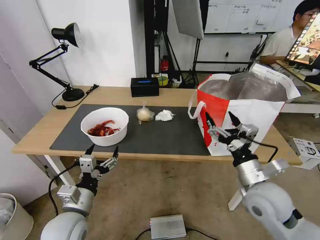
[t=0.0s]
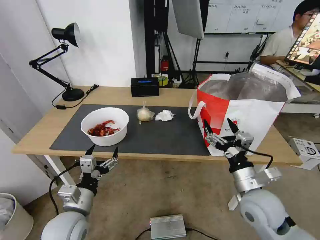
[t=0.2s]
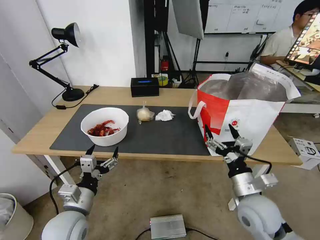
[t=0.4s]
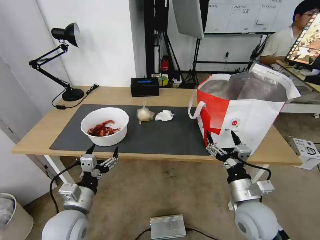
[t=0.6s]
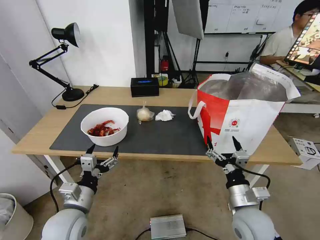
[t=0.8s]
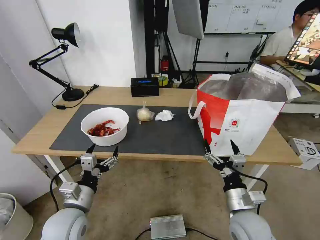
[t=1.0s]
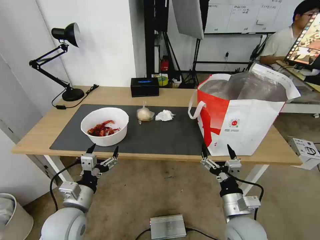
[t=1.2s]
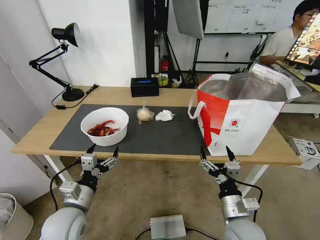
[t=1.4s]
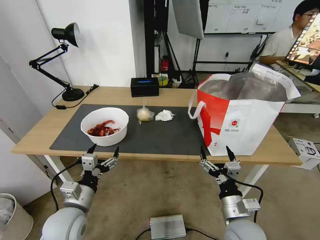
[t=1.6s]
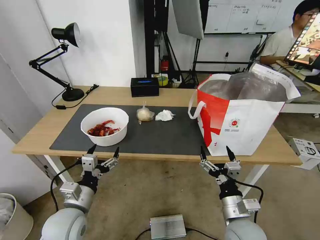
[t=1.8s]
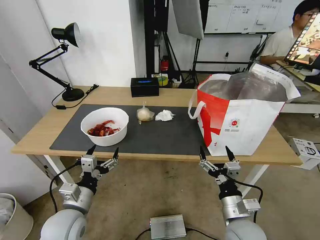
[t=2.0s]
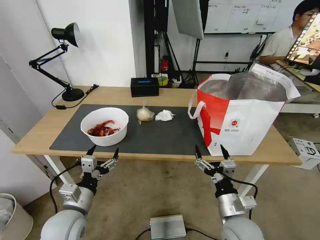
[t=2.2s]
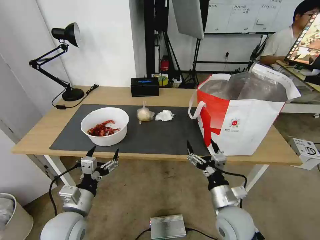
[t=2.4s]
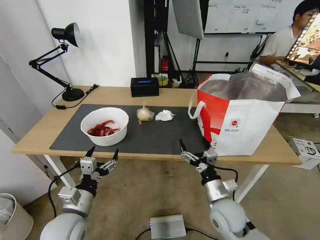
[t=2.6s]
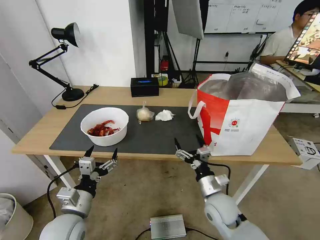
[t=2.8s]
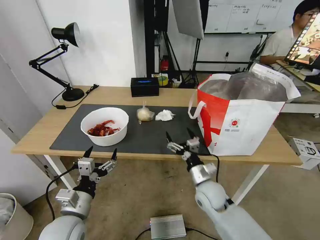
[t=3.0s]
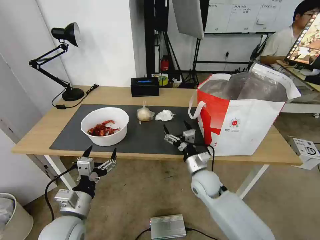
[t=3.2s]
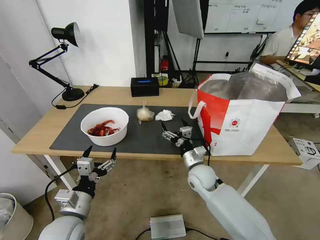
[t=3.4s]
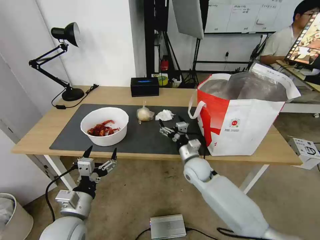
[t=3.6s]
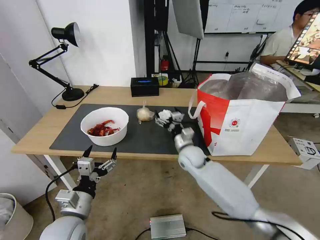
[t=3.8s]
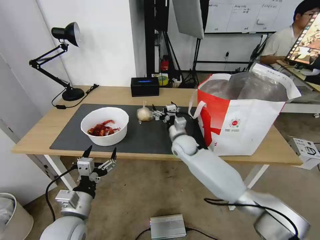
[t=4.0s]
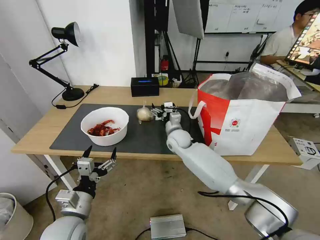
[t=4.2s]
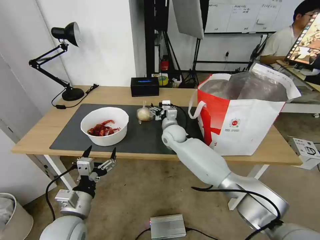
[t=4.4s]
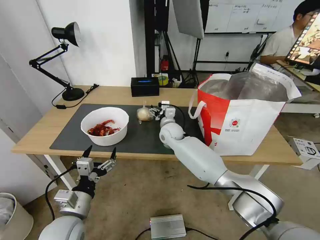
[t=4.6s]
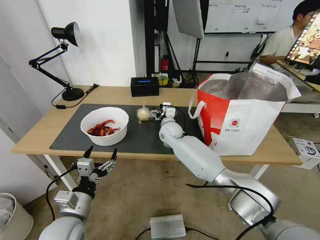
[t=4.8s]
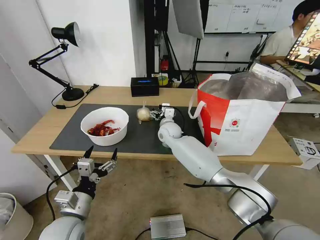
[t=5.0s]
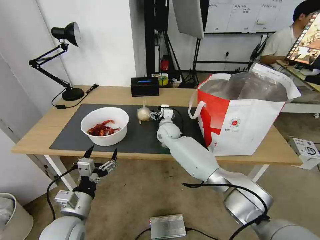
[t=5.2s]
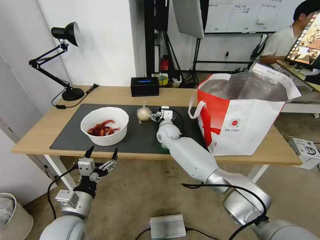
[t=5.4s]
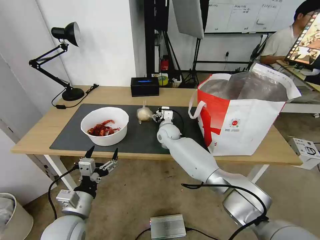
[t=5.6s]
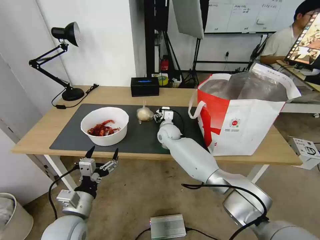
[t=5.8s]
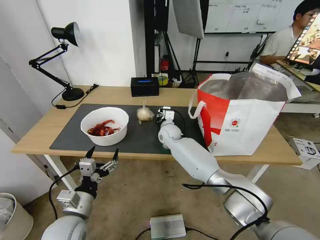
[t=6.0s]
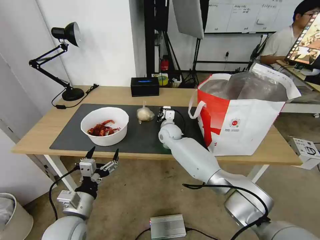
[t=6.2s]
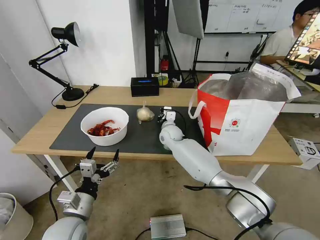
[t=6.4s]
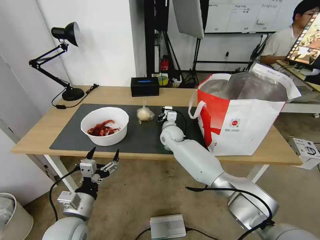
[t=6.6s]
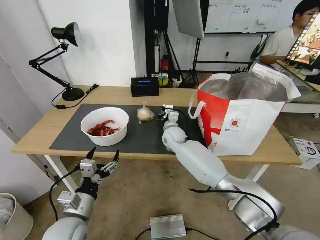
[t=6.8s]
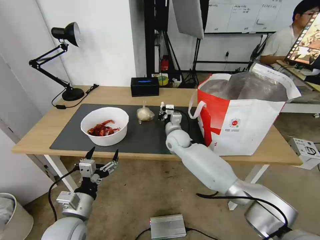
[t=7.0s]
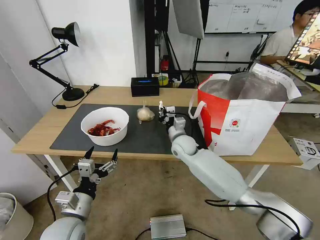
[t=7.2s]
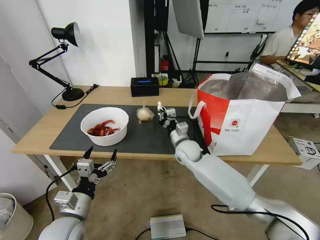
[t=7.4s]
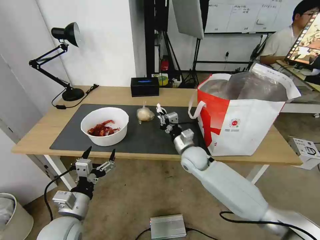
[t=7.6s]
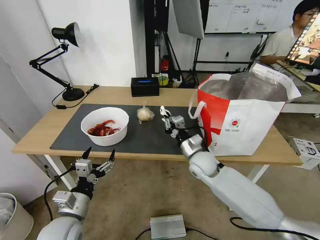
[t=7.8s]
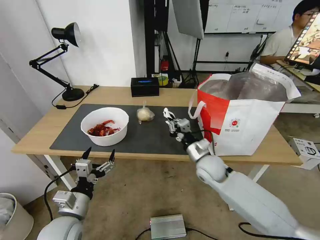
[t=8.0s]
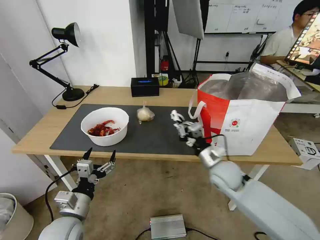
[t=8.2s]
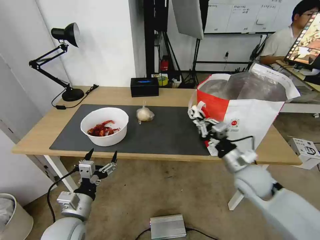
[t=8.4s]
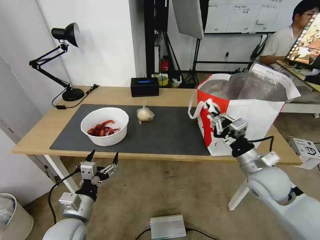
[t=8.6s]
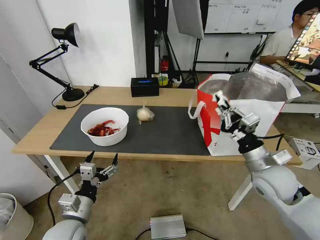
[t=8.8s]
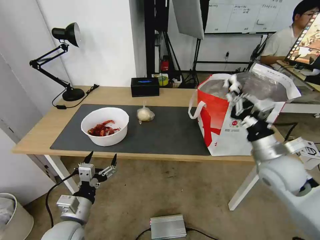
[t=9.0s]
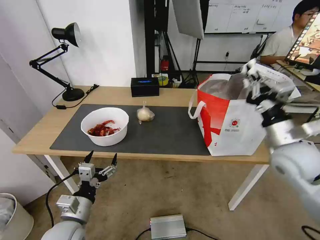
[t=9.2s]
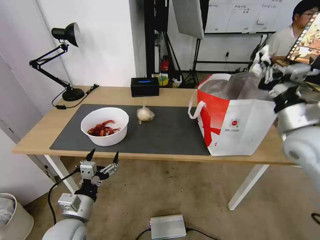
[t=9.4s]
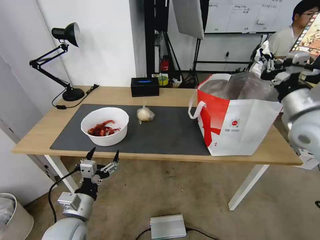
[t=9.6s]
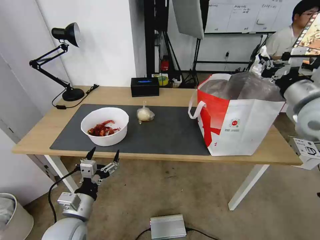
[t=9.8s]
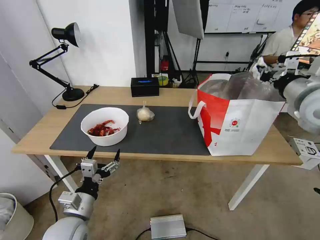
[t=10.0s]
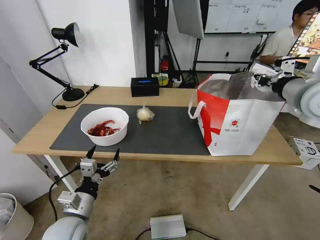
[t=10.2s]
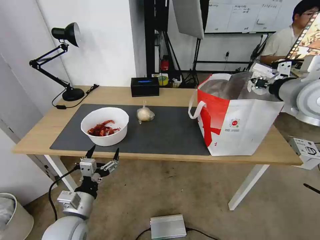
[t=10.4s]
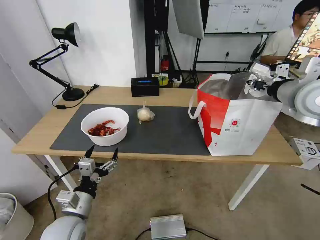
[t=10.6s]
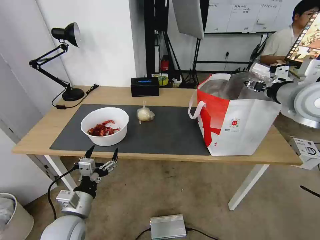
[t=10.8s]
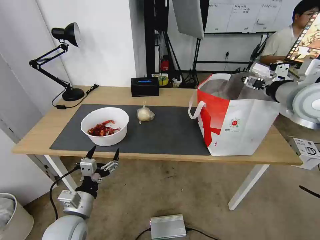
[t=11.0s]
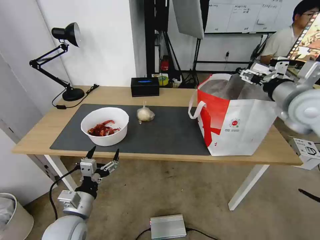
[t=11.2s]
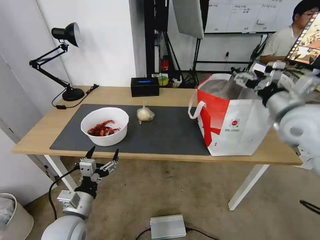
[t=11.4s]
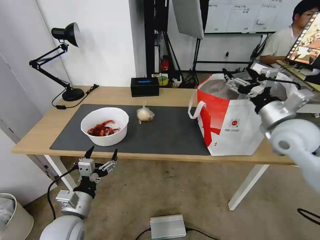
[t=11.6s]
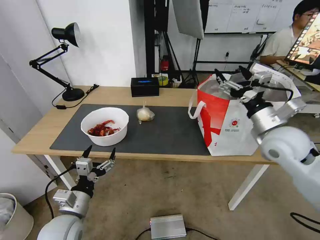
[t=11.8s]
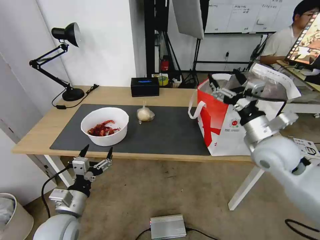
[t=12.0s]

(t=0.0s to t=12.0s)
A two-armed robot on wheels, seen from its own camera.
Task of the whole recording: Pick up the trash from the table and place it into the takeout bag.
t=0.0s - t=1.6s: The right gripper heads downward and backward, covering roughly 10 cm.
t=1.6s - t=3.0s: The right gripper heads forward and to the left, covering roughly 15 cm.
t=3.0s - t=4.4s: The right gripper is displaced forward and to the left by roughly 25 cm.
t=4.4s - t=6.0s: The right gripper closes up.
t=6.0s - t=7.6s: The right gripper goes some 15 cm backward and to the right, and closes its fingers.
t=7.6s - t=9.0s: The right gripper shifts some 25 cm to the right, upward and backward.
t=9.0s - t=10.4s: The right gripper heads upward and forward, covering approximately 20 cm.
t=10.4s - t=12.0s: The right gripper goes about 15 cm downward and to the left, and opens its fingers.

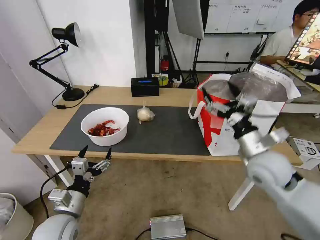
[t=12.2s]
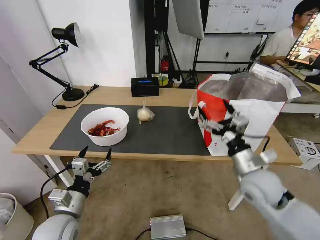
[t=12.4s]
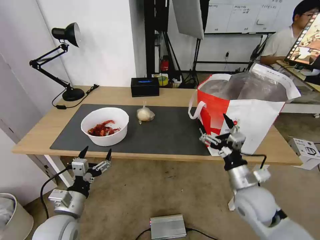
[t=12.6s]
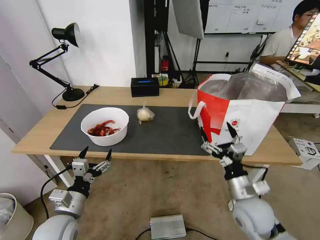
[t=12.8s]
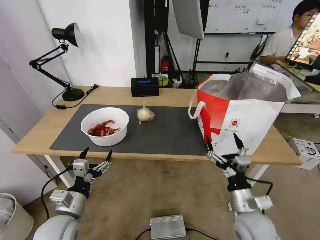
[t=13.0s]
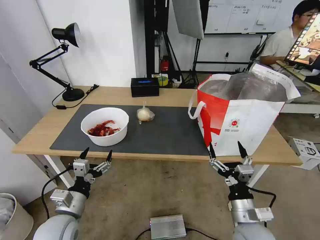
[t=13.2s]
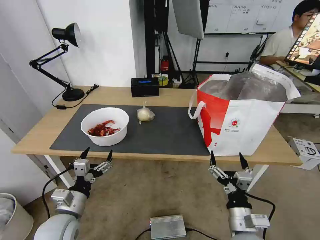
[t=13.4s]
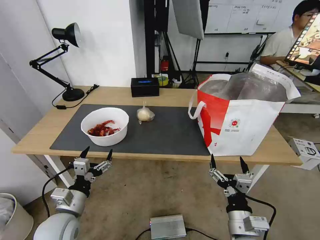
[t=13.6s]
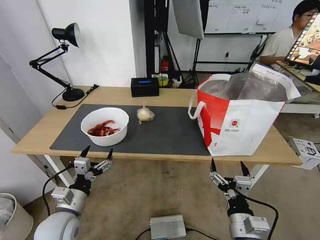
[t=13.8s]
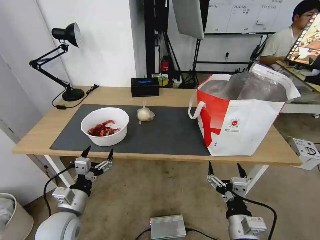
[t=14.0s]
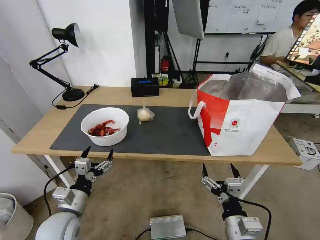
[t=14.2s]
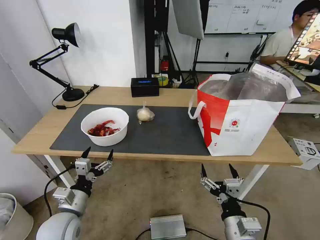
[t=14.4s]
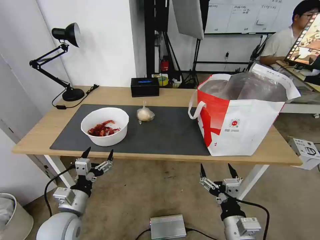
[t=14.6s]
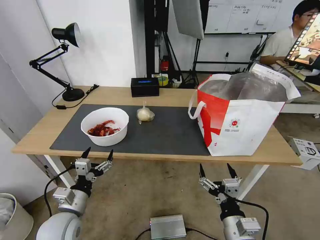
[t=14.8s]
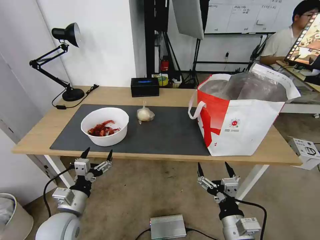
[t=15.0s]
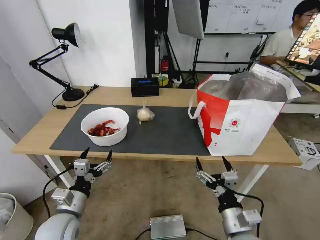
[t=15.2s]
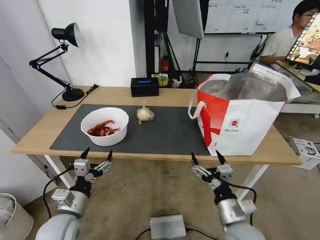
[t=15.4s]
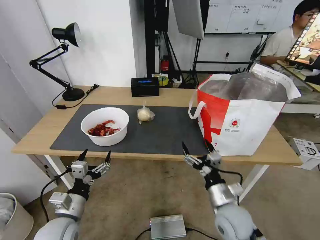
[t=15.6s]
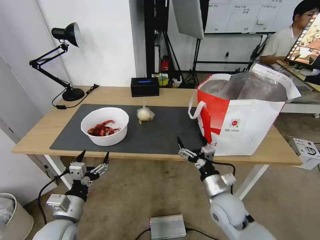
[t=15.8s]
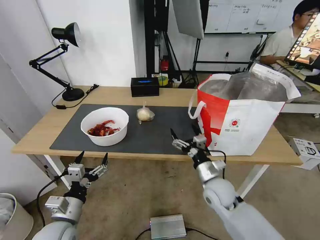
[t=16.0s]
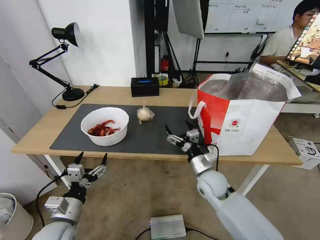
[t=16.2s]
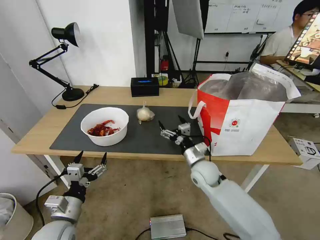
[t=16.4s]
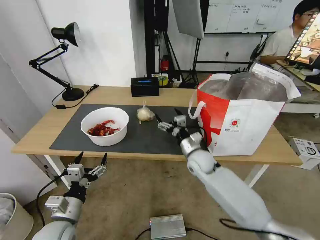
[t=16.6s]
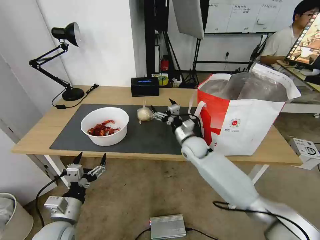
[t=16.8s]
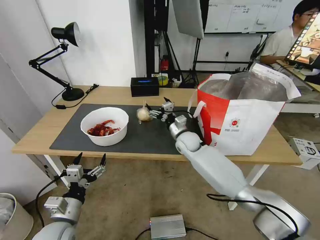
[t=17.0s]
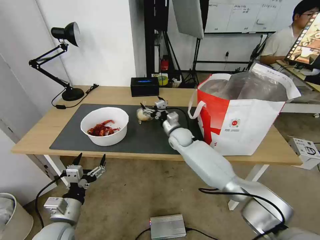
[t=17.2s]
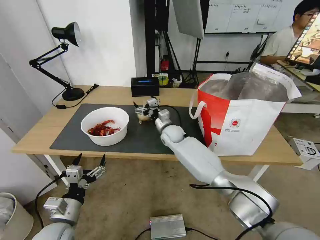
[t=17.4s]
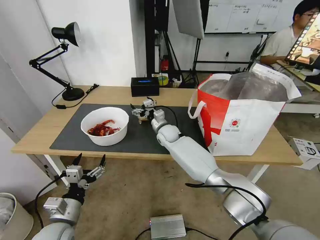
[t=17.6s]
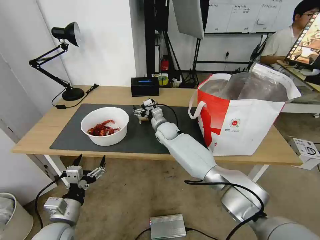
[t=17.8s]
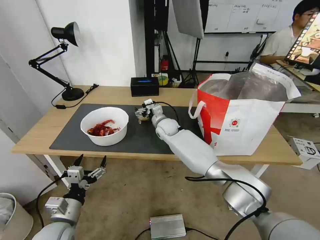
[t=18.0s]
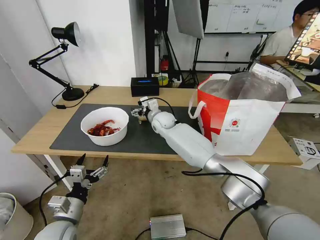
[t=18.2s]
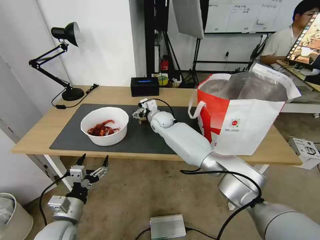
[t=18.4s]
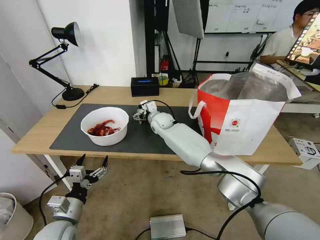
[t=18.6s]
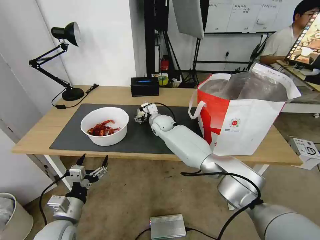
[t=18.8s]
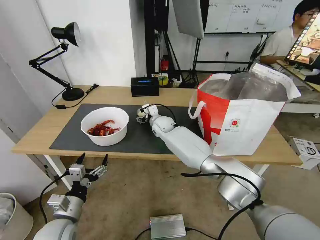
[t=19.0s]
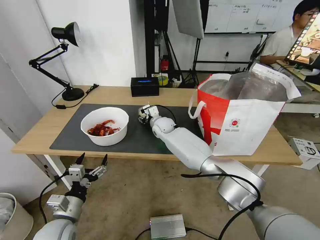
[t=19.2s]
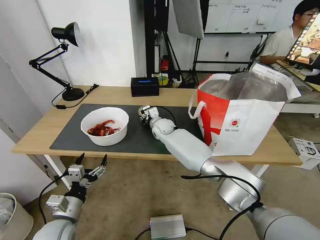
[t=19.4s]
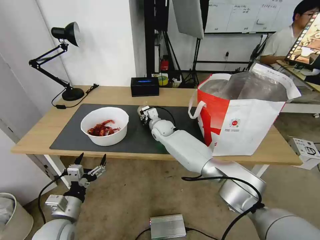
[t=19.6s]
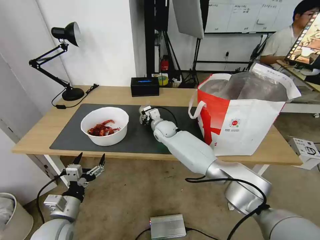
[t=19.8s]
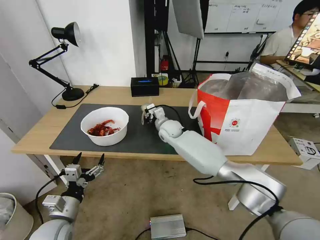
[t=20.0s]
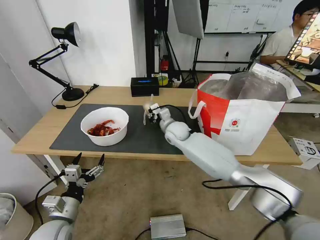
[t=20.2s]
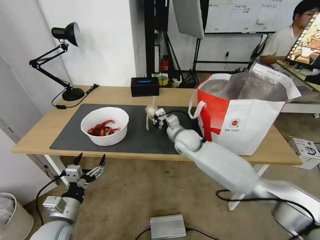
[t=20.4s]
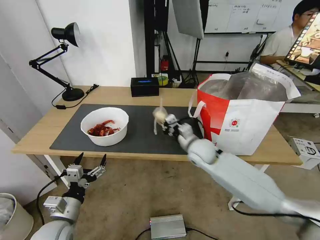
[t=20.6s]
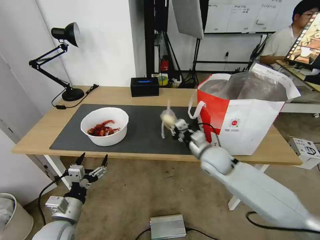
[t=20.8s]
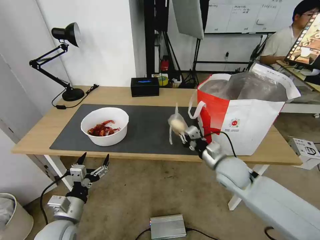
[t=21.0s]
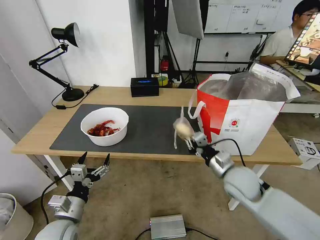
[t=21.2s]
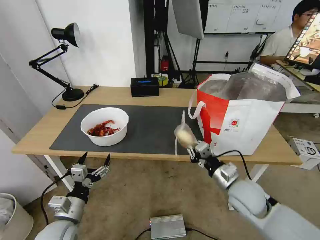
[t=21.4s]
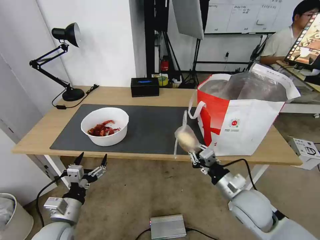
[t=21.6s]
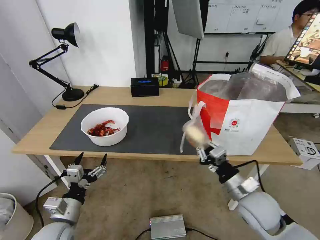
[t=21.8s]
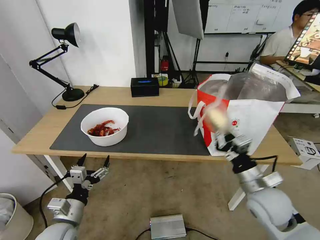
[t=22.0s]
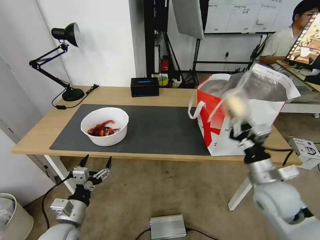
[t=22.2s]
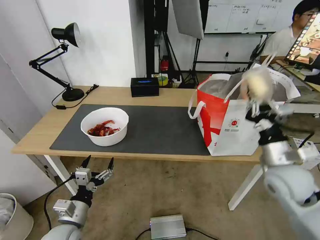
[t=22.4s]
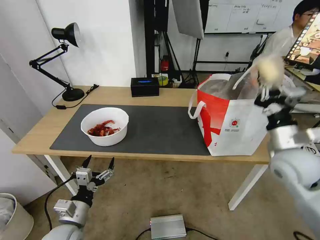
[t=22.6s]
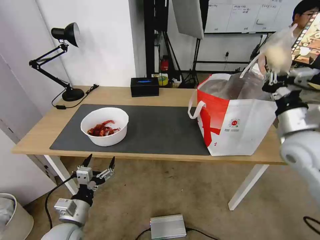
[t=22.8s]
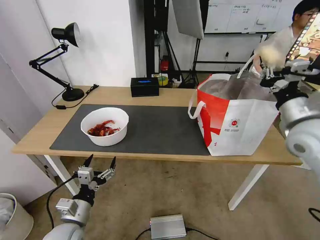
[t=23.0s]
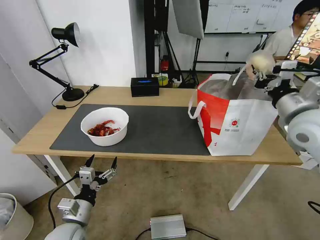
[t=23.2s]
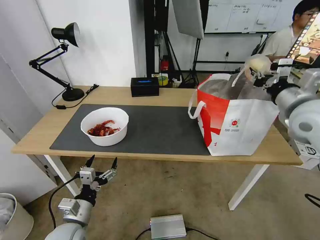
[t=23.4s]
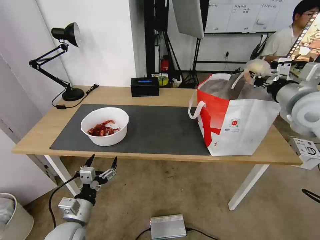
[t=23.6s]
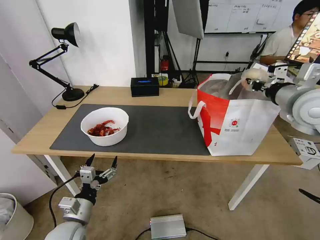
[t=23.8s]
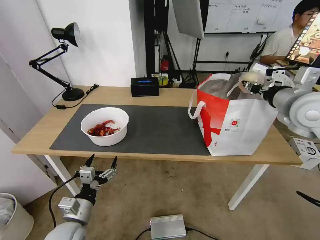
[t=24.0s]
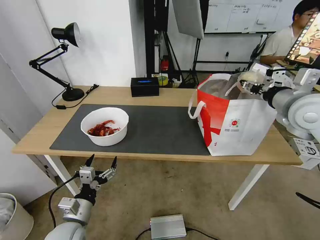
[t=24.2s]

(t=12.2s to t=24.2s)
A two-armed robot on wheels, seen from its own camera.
Task of the whole recording: Pick up the trash from the table and place it into the takeout bag.
t=12.2s - t=13.8s: The right gripper moves backward and downward, approximately 25 cm.
t=13.8s - t=15.2s: The grippers make only small movements.
t=15.2s - t=16.6s: The right gripper goes approximately 30 cm forward.
t=16.6s - t=18.2s: The right gripper goes about 20 cm forward, to the left and upward.
t=18.2s - t=19.8s: The right gripper closes.
t=19.8s - t=21.2s: The right gripper is displaced backward and to the right by roughly 35 cm.
t=21.2s - t=22.6s: The right gripper goes roughly 15 cm upward and to the right.
t=22.6s - t=24.2s: The right gripper goes about 15 cm upward and forward, and opens its fingers.
